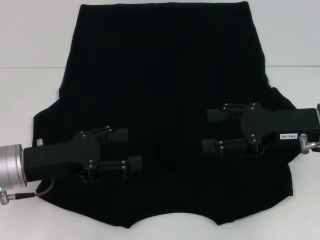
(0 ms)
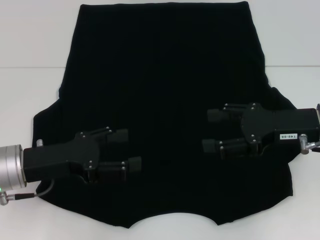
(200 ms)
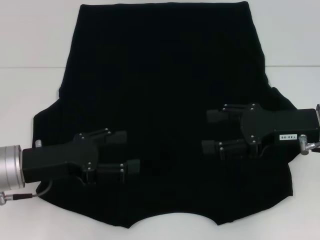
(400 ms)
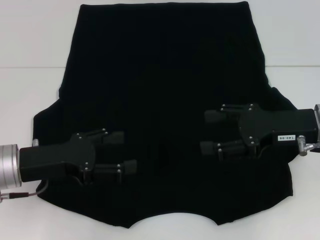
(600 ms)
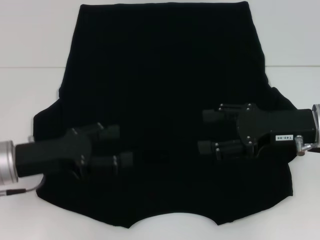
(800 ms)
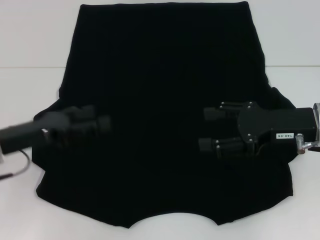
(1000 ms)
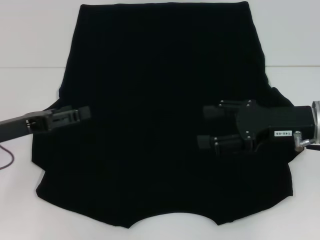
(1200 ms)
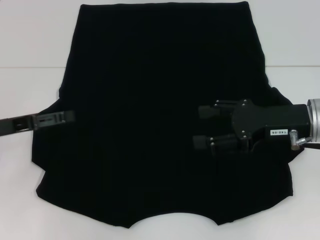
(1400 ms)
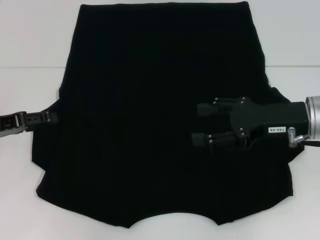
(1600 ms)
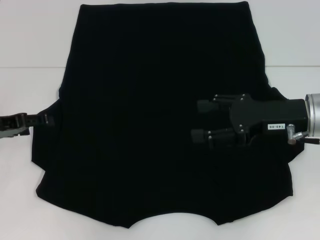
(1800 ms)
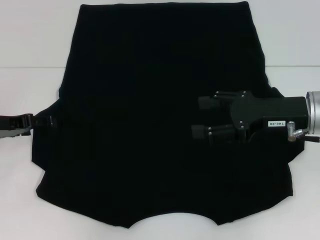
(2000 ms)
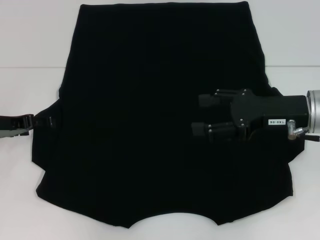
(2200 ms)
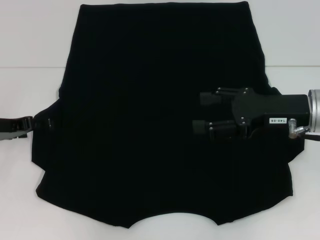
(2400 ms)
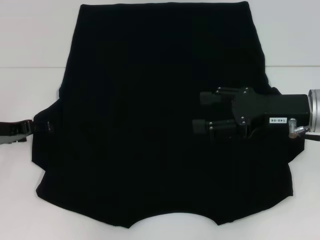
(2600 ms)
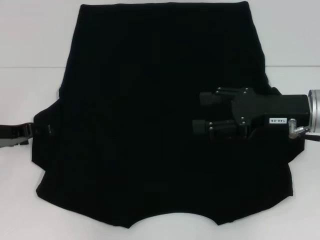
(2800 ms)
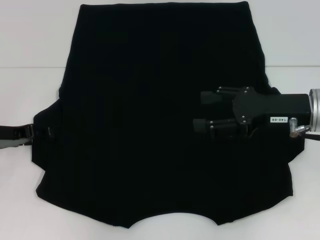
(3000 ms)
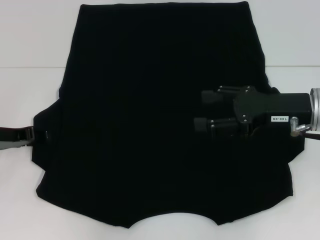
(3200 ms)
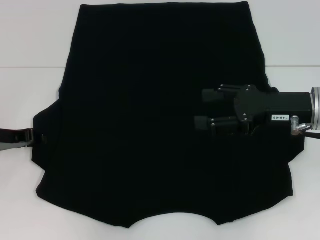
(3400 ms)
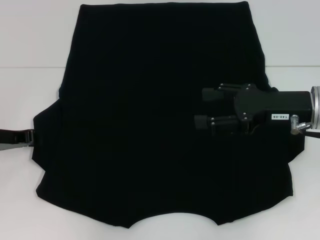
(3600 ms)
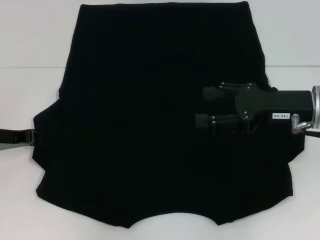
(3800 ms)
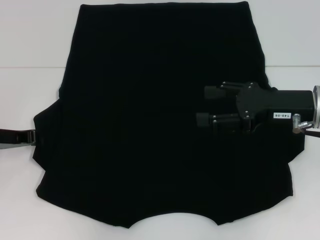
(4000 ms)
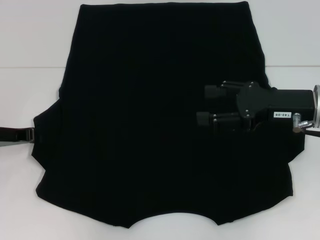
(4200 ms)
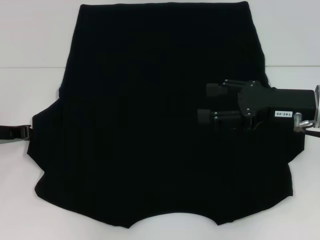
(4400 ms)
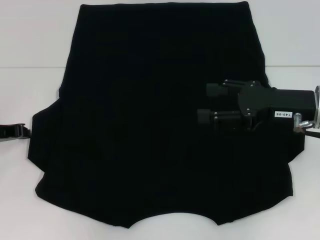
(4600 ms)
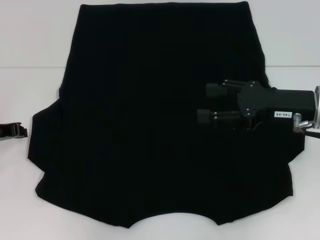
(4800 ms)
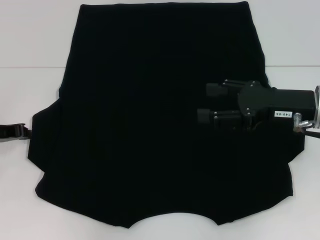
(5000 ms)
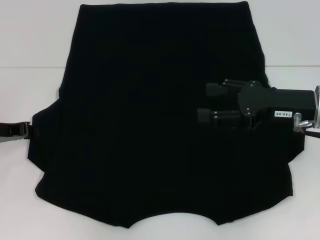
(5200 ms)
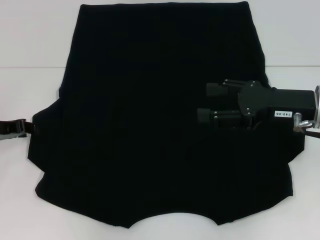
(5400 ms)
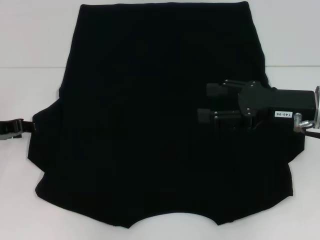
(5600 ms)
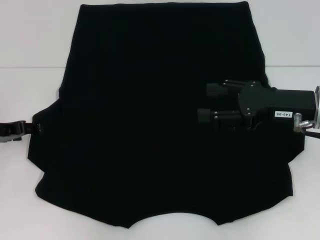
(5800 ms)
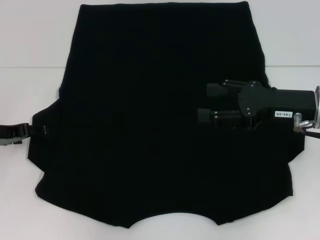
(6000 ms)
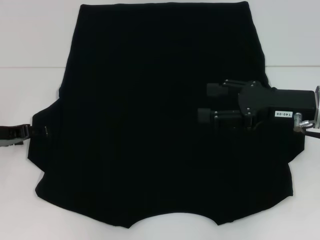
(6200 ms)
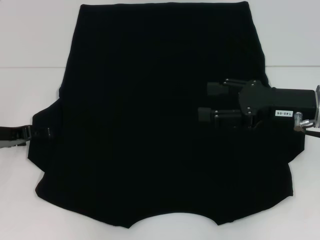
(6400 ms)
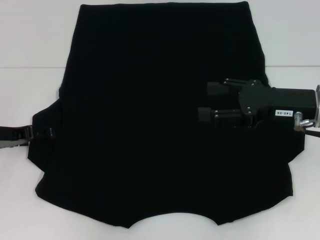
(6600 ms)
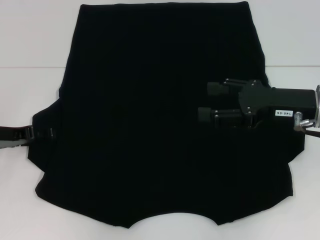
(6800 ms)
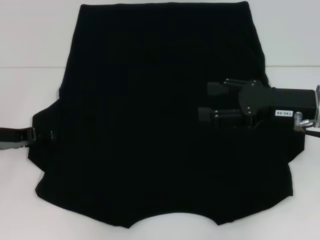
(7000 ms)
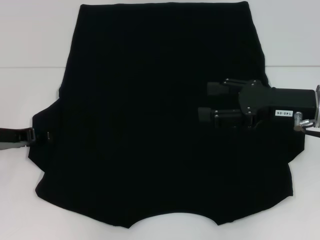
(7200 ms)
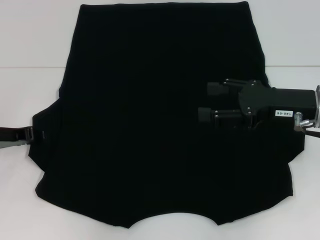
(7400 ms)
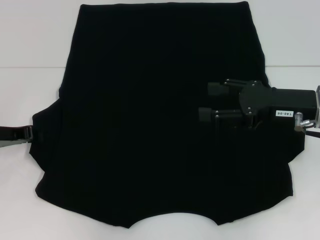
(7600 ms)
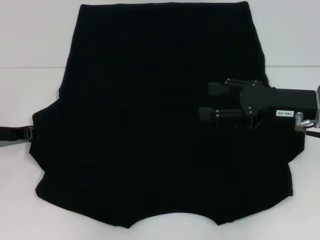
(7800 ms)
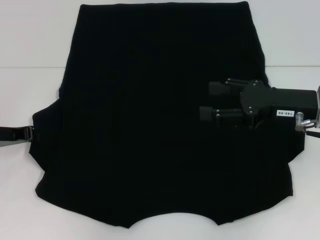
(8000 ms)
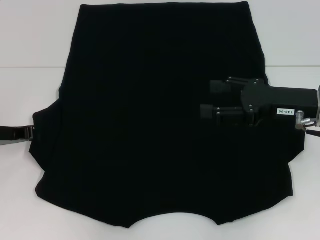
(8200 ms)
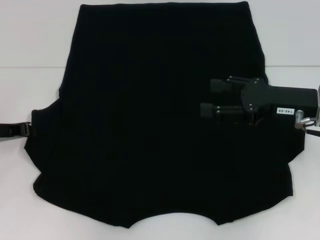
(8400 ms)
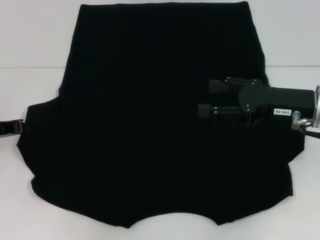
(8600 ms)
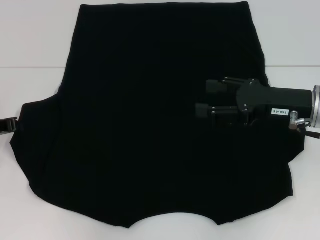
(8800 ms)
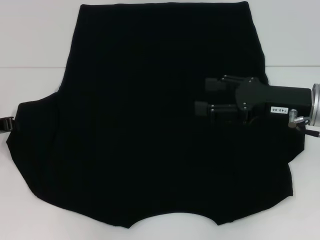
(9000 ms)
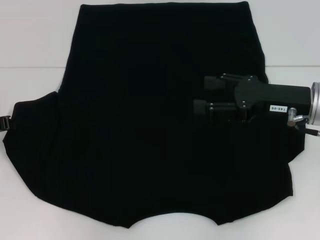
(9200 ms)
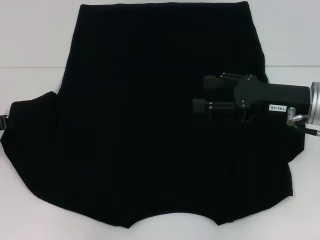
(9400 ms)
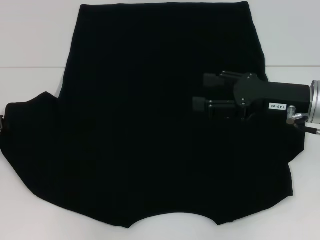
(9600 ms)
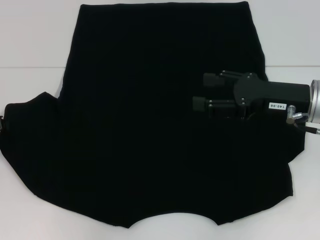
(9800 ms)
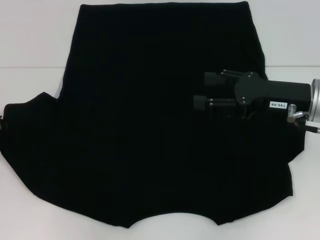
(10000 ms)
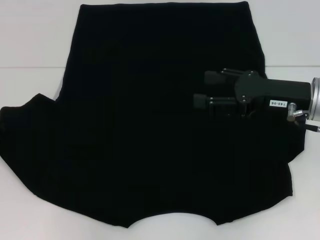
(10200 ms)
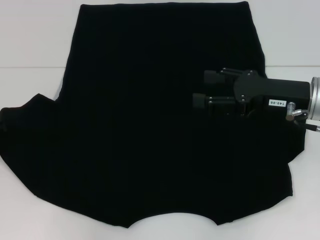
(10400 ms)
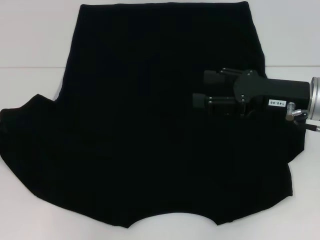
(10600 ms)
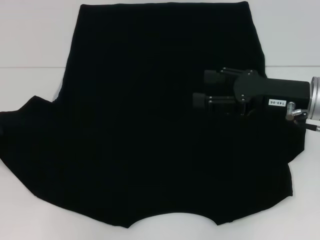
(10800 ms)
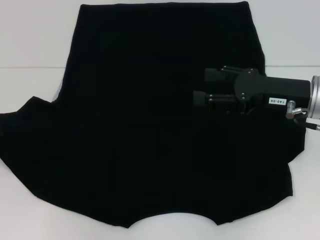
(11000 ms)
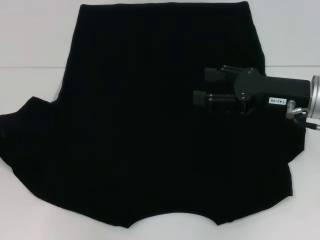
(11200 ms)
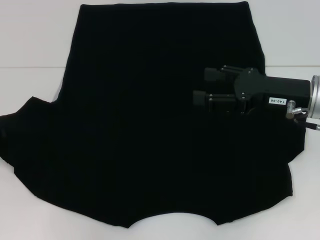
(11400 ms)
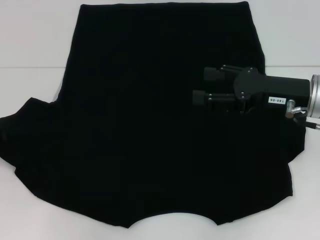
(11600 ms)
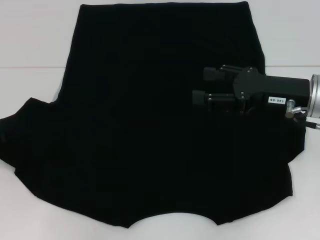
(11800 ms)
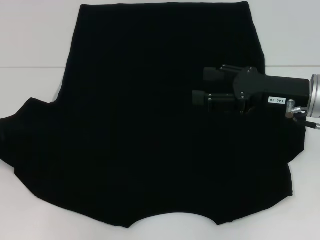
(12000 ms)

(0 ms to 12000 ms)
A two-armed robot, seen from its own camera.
0 ms - 1600 ms: The left gripper moves to the left, approximately 10 cm.
1600 ms - 3000 ms: There are only small adjustments of the grippers.
3000 ms - 4400 ms: The left gripper closes up.
4400 ms - 6000 ms: The left gripper opens its fingers.
6000 ms - 7600 ms: The two grippers keep their place.
7600 ms - 9000 ms: The left gripper closes its fingers.
9000 ms - 12000 ms: The grippers move only a little.

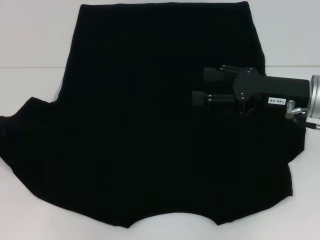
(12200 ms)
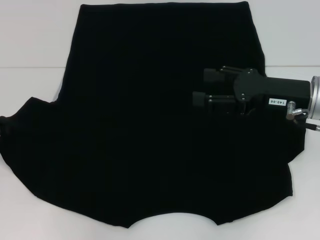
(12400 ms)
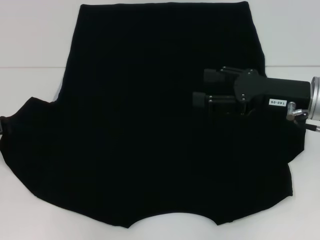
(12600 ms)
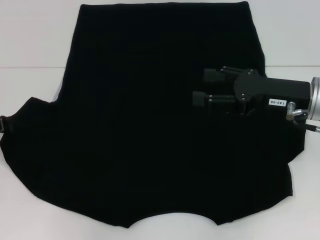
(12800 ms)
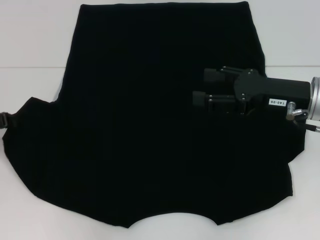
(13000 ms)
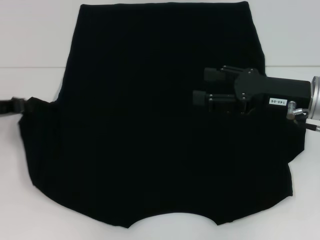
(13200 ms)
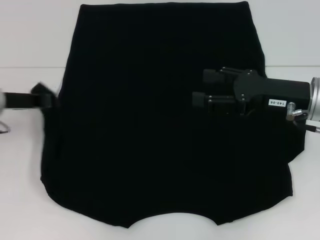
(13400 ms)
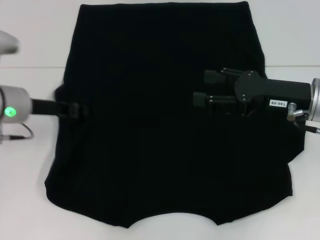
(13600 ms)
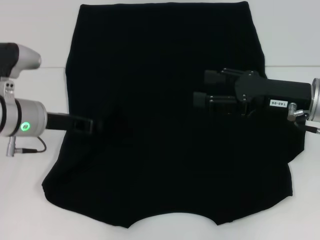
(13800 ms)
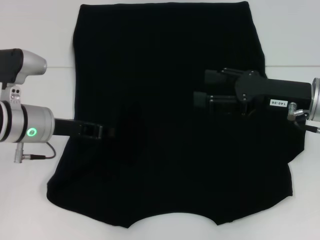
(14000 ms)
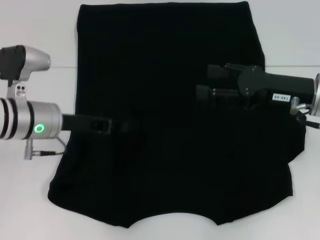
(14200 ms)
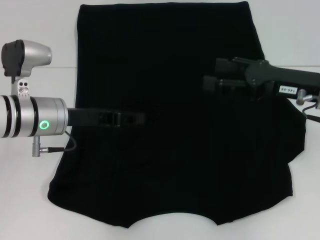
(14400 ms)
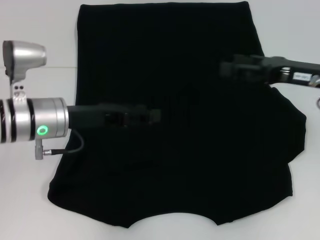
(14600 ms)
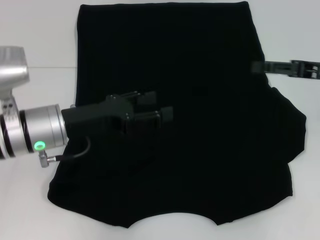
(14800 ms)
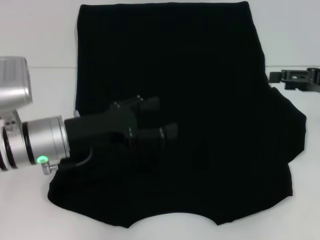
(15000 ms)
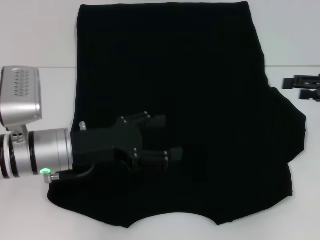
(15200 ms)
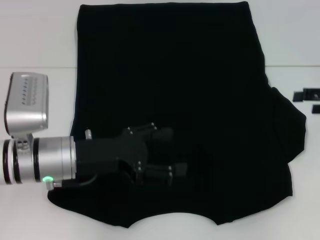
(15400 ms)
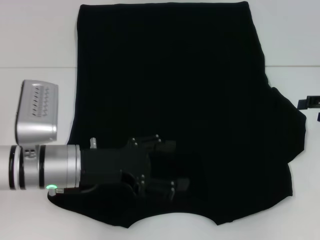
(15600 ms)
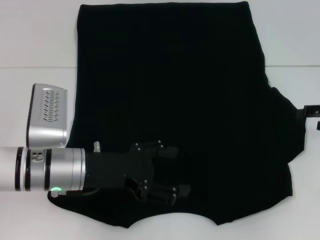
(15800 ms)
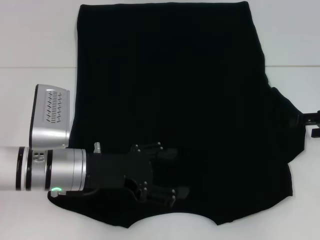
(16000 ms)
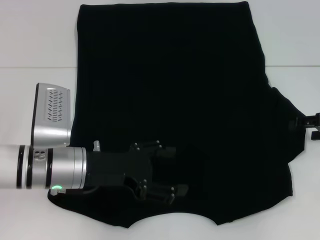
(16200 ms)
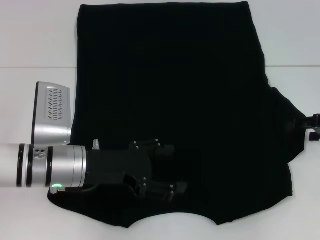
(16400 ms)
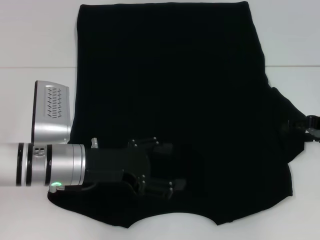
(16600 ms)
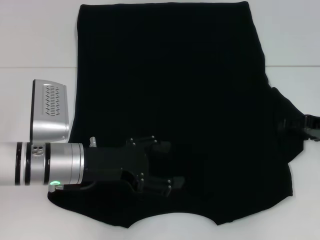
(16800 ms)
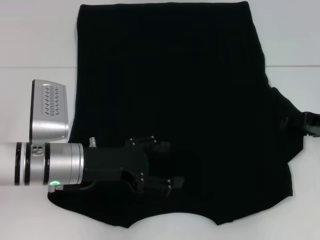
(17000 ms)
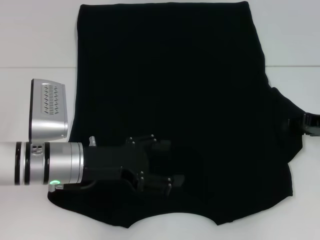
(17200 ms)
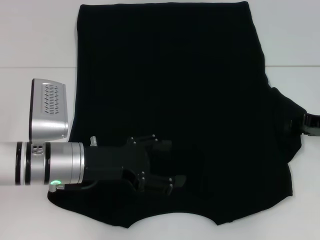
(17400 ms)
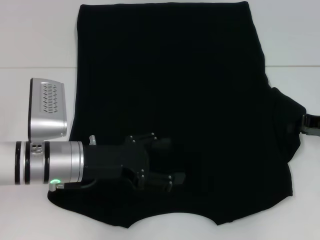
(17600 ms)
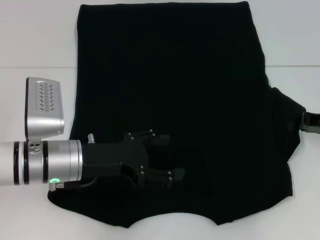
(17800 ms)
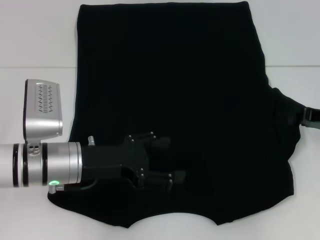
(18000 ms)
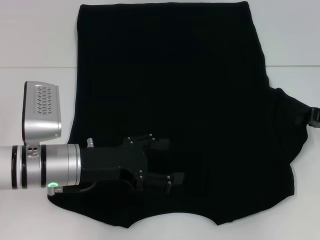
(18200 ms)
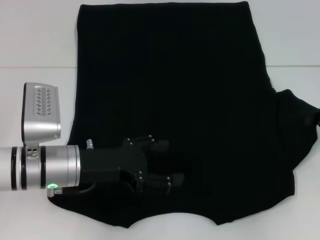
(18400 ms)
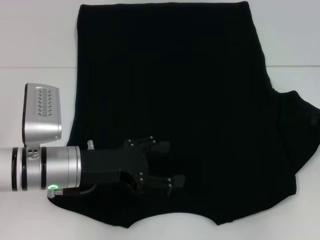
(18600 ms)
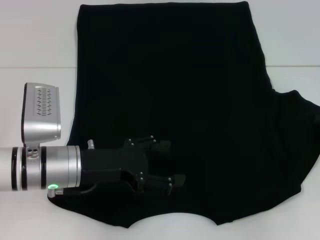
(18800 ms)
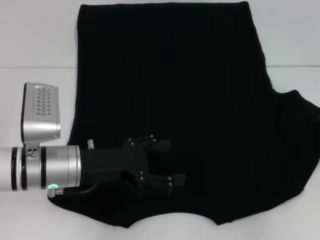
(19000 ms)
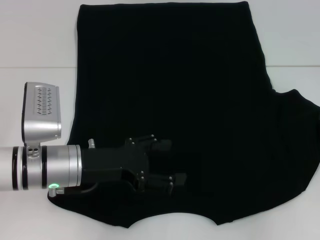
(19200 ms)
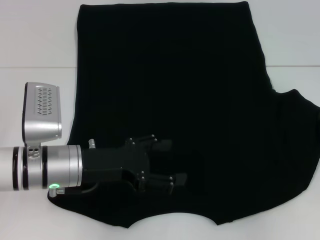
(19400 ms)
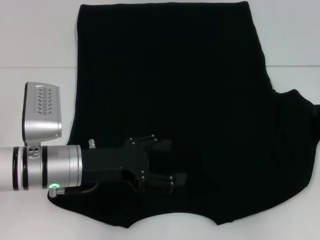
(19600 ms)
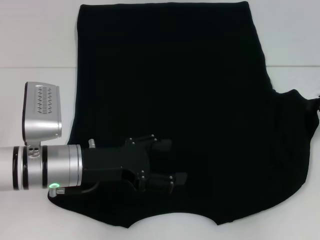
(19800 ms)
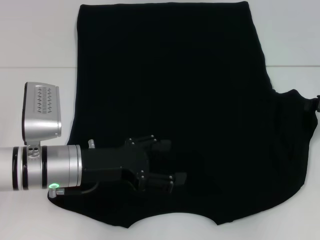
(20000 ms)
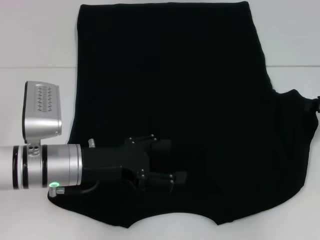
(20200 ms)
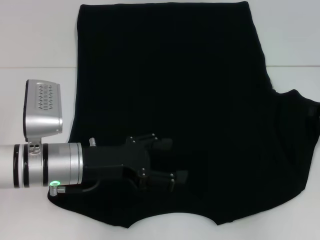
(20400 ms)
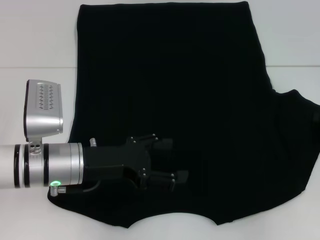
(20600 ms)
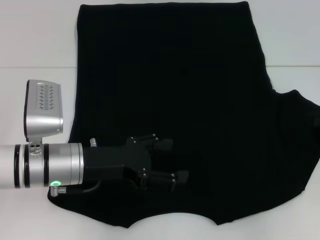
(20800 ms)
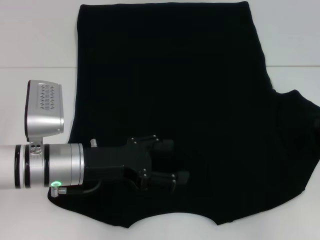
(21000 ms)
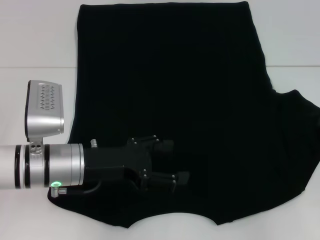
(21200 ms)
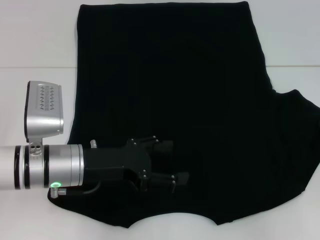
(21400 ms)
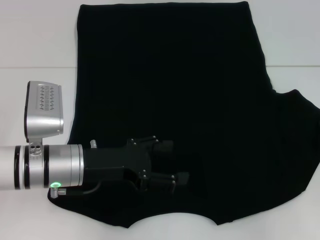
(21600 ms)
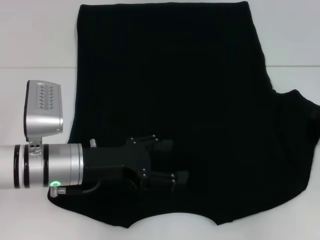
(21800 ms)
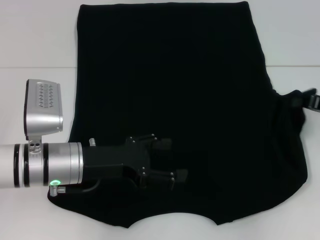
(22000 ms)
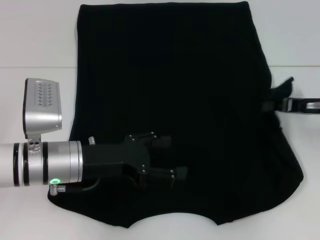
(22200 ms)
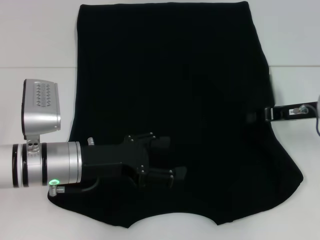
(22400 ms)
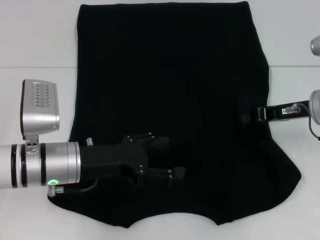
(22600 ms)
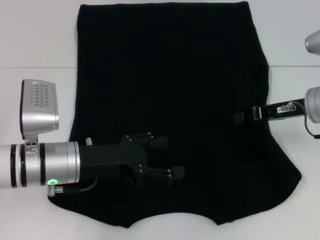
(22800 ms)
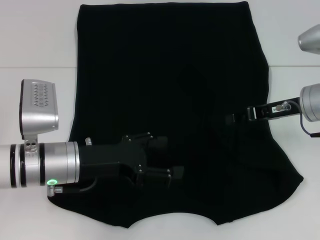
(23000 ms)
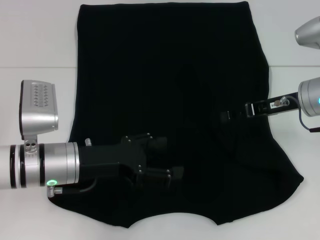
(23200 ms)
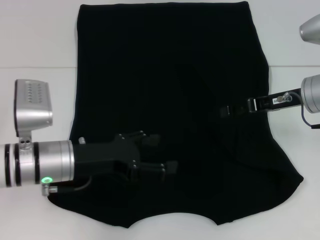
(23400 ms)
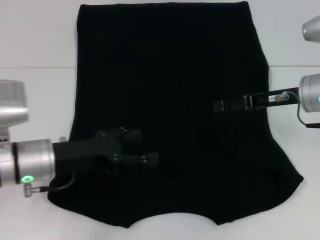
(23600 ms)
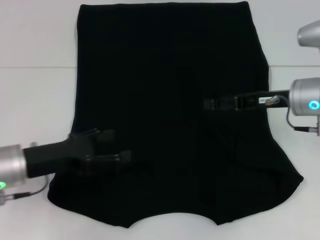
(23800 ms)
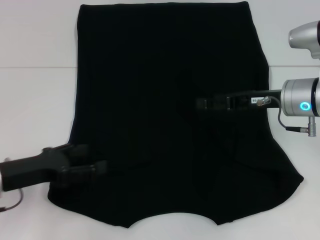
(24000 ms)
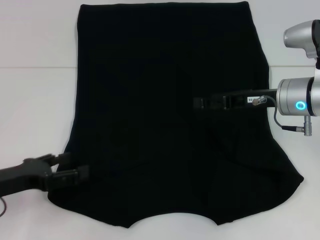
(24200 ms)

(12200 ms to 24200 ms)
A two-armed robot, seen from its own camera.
Step, 12200 ms - 14200 ms: Fold the bottom left sleeve with your left hand.
Step, 14400 ms - 23200 ms: Fold the bottom right sleeve with your right hand.
12200 ms - 13800 ms: The left gripper is displaced to the right by some 15 cm.
13800 ms - 15200 ms: The right gripper shifts some 10 cm to the right, while the left gripper goes about 5 cm backward, and opens up.
15200 ms - 16600 ms: The right gripper moves downward, about 5 cm.
16600 ms - 18200 ms: The right gripper closes.
18200 ms - 21200 ms: The grippers stay close to where they were, moving slightly.
21200 ms - 22600 ms: The right gripper goes roughly 10 cm to the left.
22600 ms - 24200 ms: The right gripper ends up roughly 5 cm from where it was, and opens its fingers. The left gripper shifts roughly 15 cm to the left.
